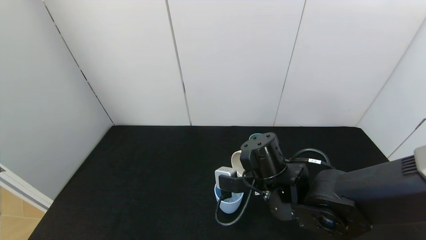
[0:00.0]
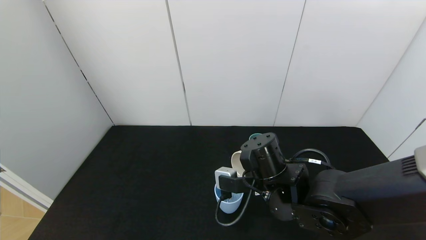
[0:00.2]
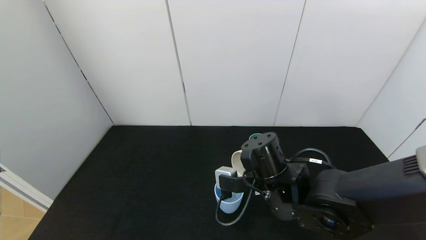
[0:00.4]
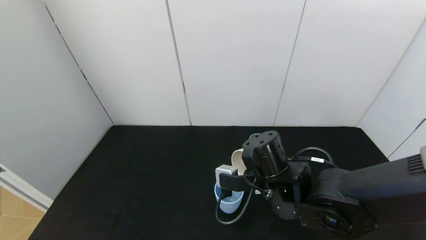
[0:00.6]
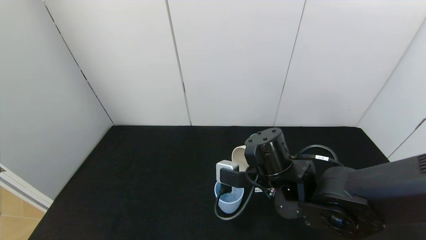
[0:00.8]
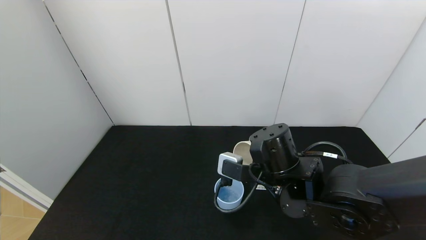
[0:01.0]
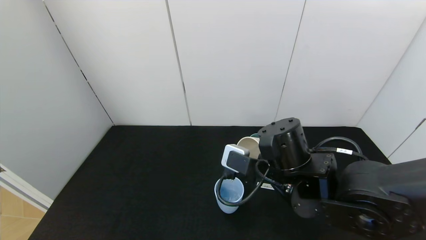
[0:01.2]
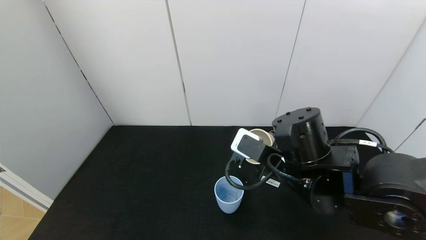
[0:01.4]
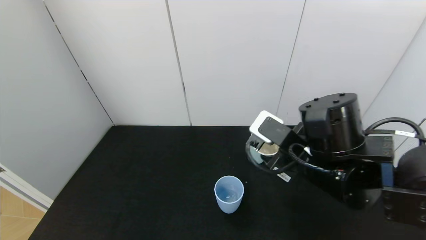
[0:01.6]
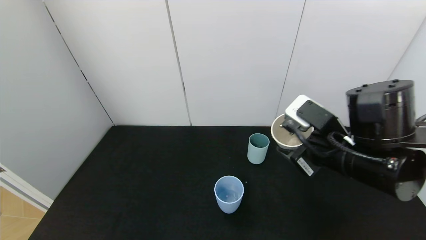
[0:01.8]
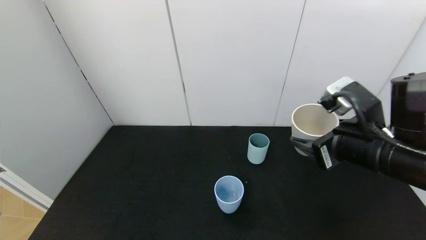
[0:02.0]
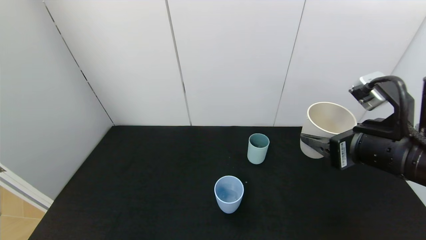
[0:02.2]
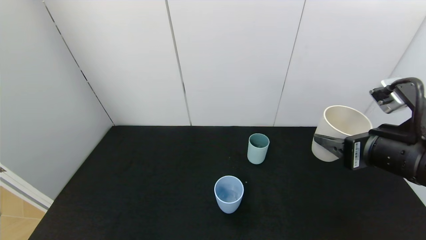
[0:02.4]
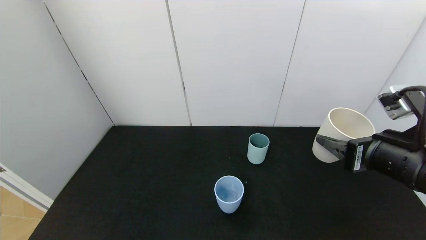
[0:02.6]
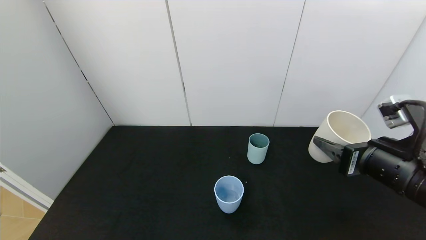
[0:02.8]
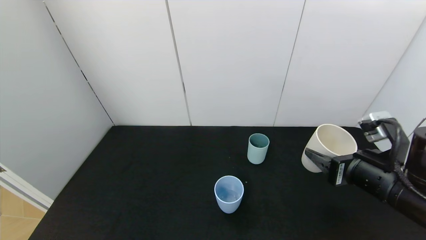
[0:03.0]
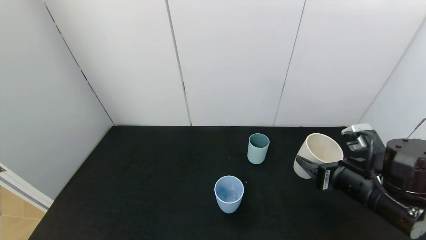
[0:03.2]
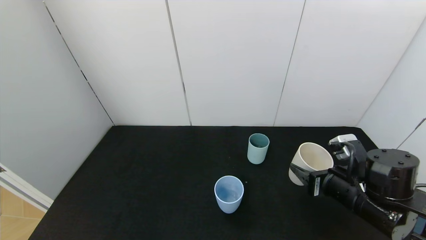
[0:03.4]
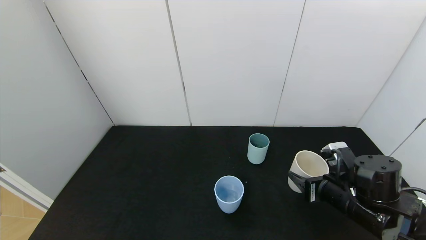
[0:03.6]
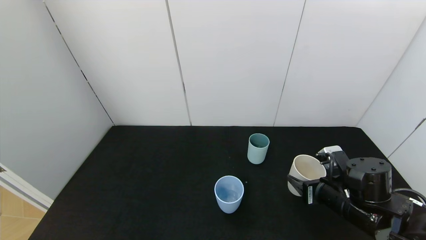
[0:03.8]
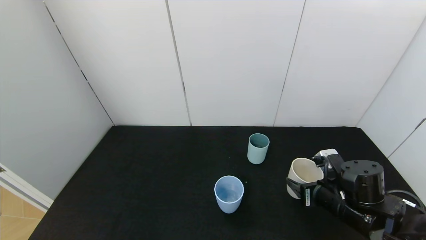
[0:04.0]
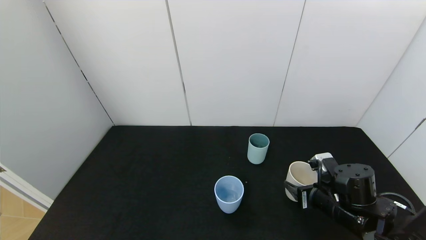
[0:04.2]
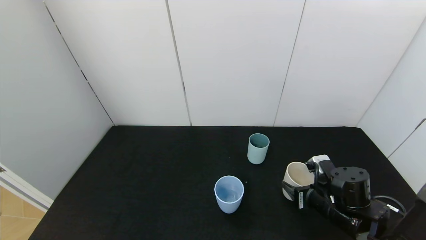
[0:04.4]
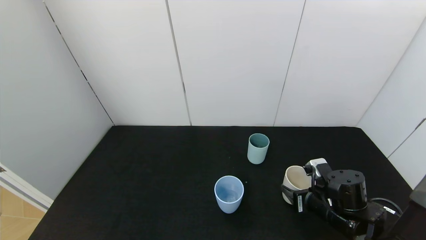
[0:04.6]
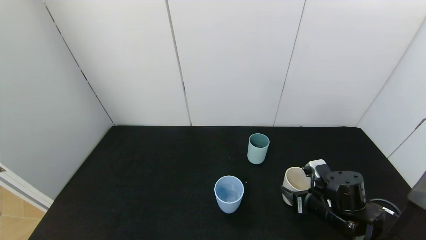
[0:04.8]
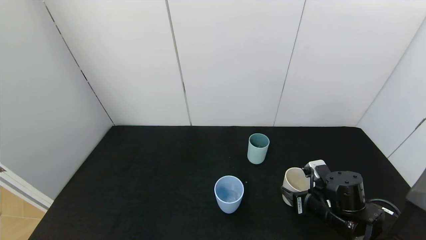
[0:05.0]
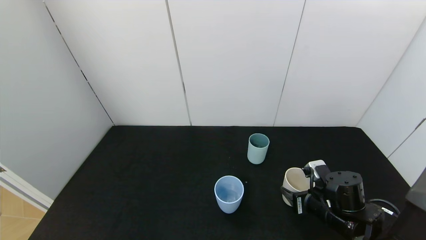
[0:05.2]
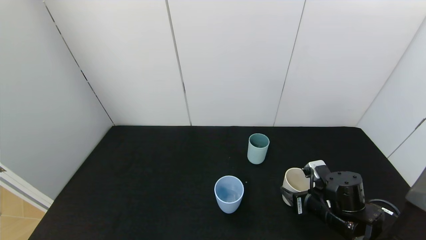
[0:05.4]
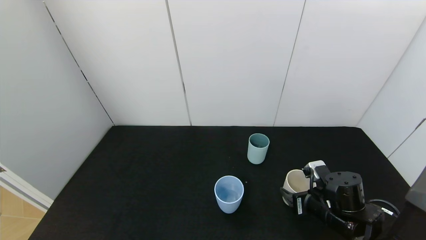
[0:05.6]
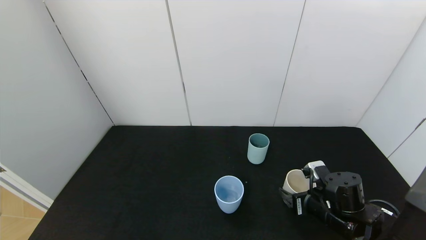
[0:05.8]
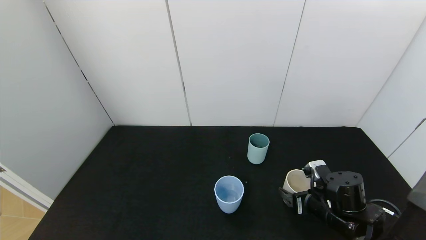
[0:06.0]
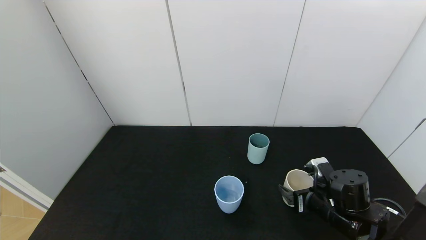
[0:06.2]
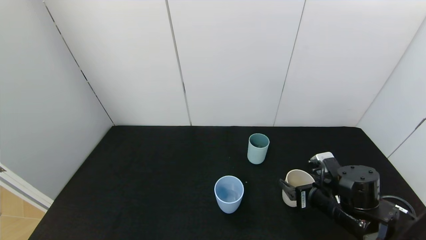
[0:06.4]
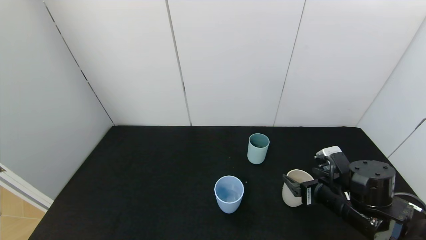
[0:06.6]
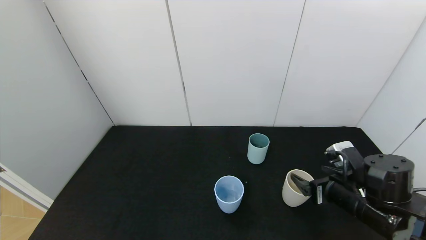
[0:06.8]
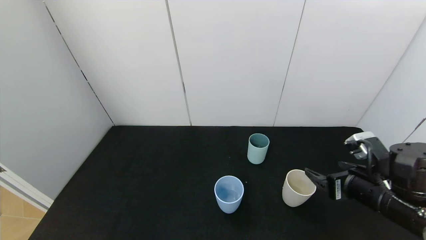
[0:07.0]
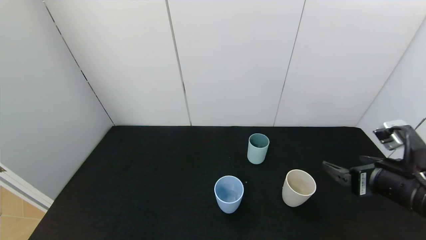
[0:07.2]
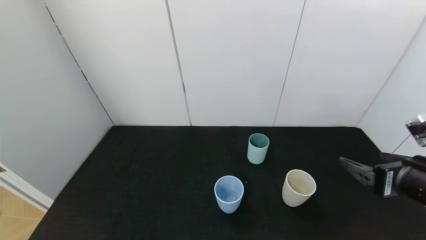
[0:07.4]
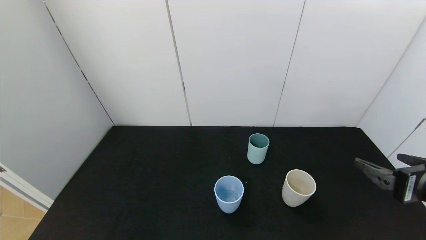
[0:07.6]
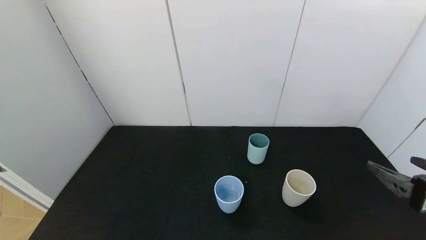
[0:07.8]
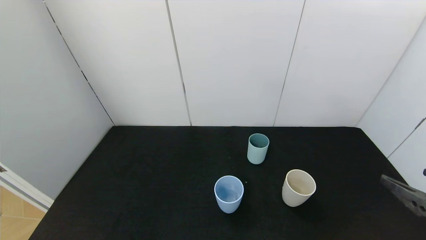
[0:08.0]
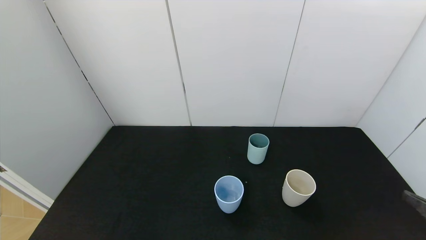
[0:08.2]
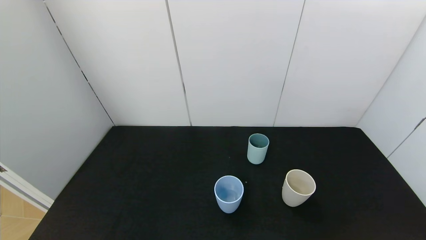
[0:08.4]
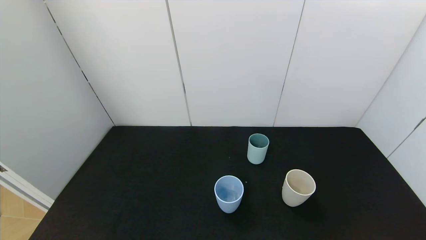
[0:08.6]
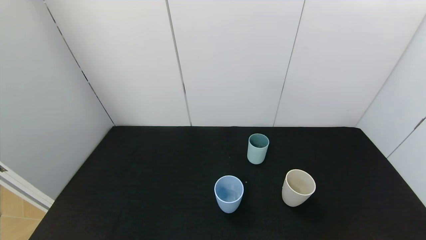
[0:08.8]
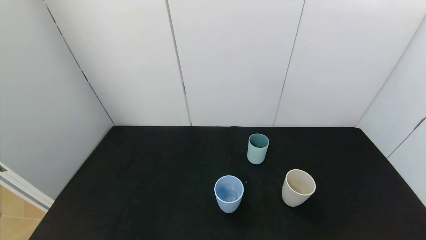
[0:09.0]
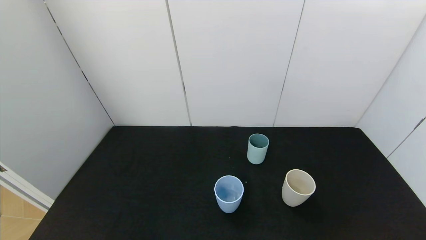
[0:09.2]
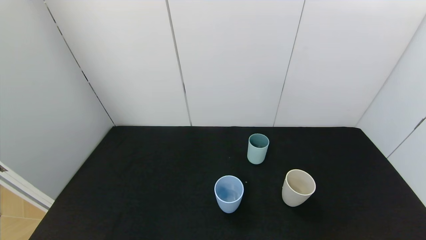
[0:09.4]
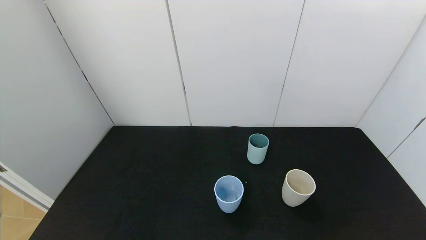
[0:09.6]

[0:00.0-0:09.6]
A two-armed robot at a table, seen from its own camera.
Task of the whole recording: use the gripper to pour the water into the other two cups on black table.
Step, 0:01.6 to 0:06.8: Place the white cup with the right gripper.
0:00.0 to 0:01.6: The right gripper travels upward and to the right by approximately 10 cm.
0:01.6 to 0:03.2: The right gripper shifts about 10 cm to the right and downward.
0:03.2 to 0:04.8: The right gripper shifts some 10 cm downward.
0:04.8 to 0:06.4: The right gripper opens its fingers.
0:06.4 to 0:08.0: The right gripper shifts roughly 20 cm backward, upward and to the right.
0:08.0 to 0:09.6: The right gripper shifts approximately 20 cm backward and downward.
